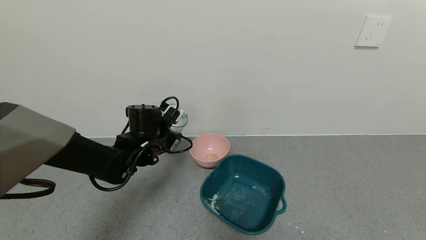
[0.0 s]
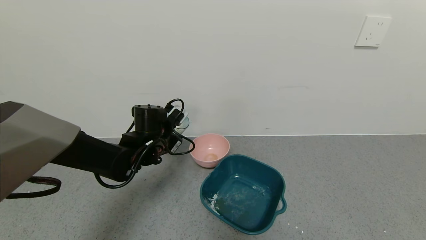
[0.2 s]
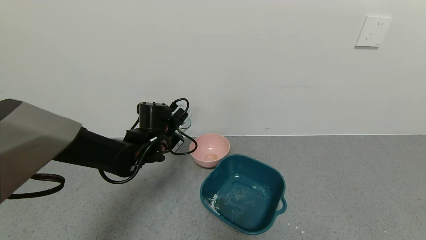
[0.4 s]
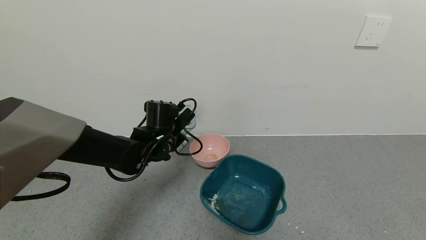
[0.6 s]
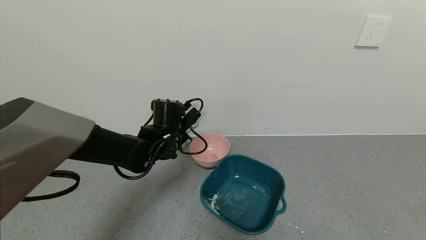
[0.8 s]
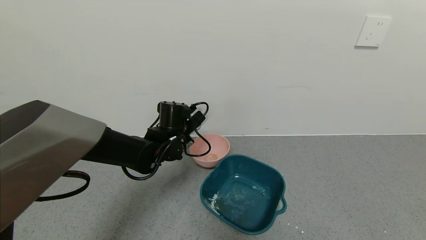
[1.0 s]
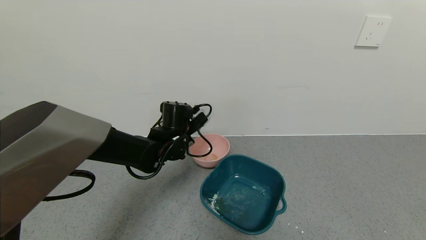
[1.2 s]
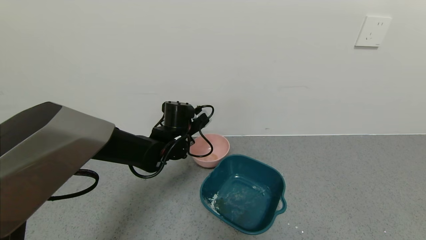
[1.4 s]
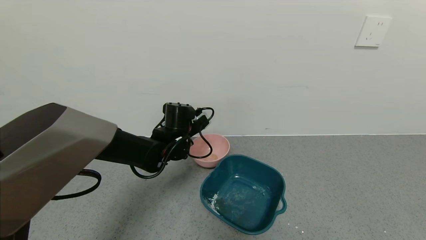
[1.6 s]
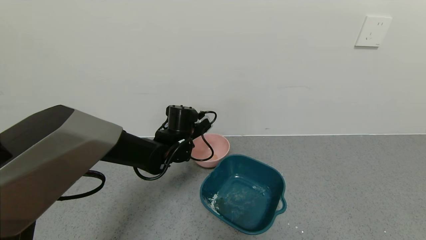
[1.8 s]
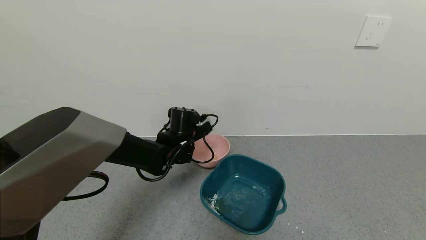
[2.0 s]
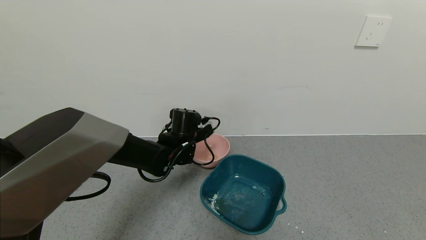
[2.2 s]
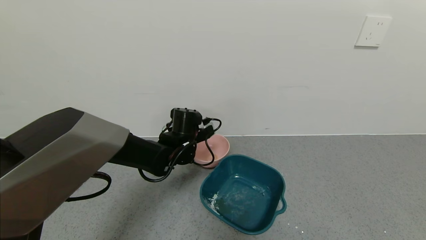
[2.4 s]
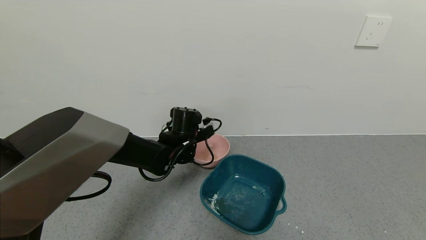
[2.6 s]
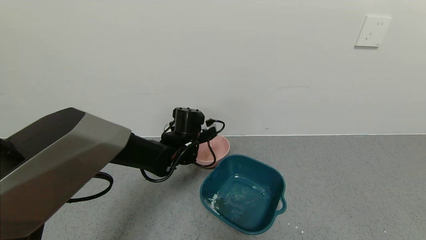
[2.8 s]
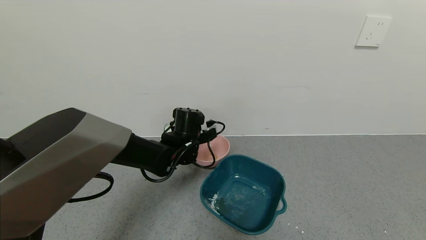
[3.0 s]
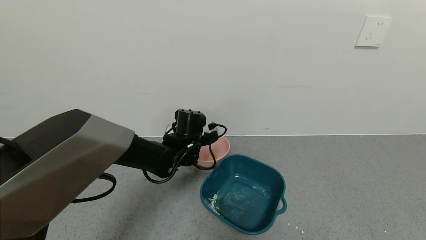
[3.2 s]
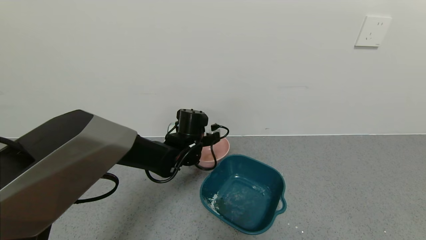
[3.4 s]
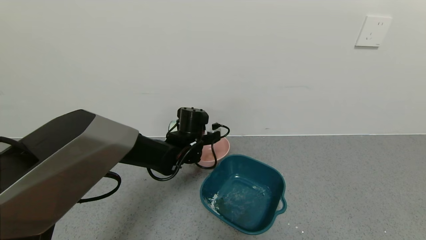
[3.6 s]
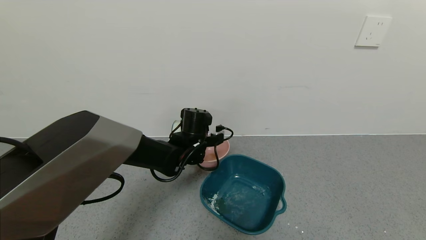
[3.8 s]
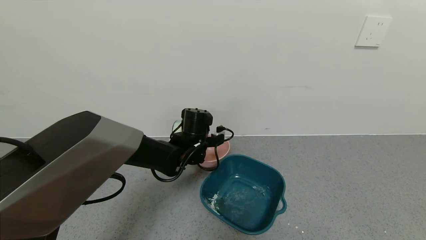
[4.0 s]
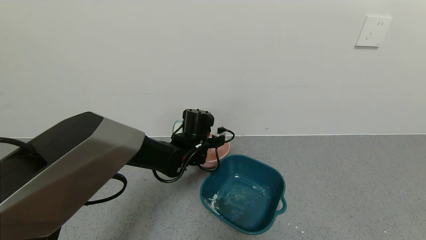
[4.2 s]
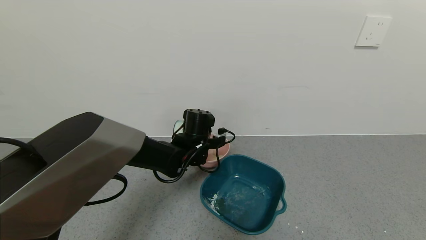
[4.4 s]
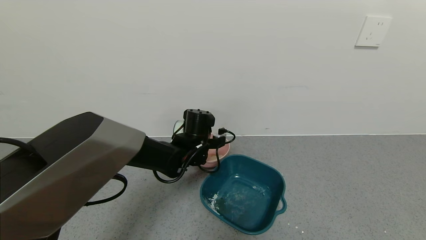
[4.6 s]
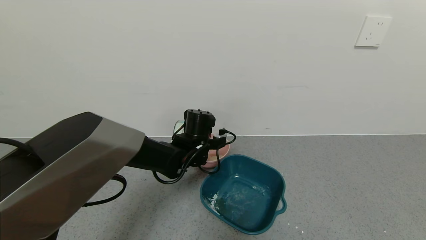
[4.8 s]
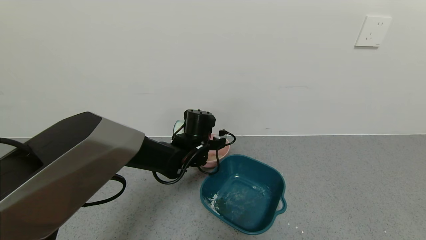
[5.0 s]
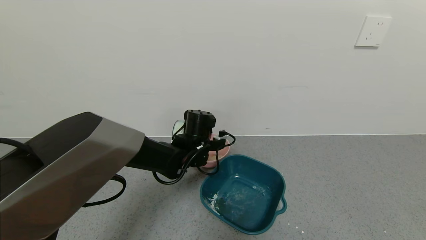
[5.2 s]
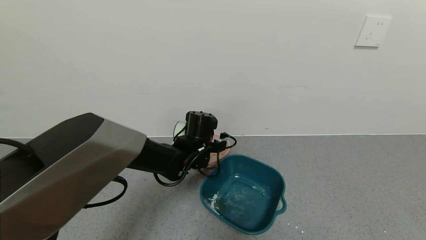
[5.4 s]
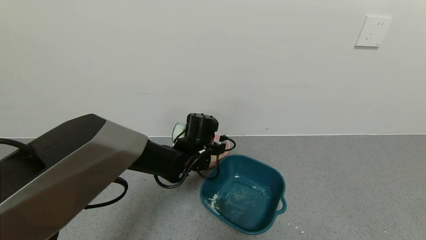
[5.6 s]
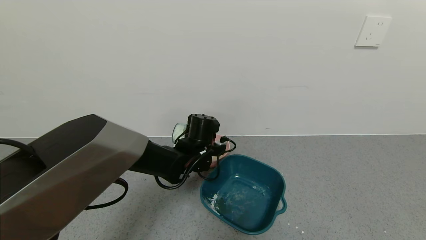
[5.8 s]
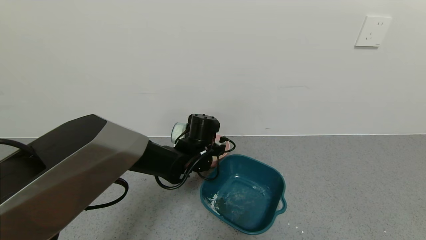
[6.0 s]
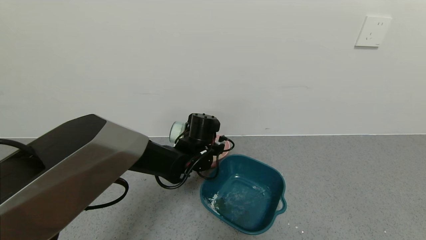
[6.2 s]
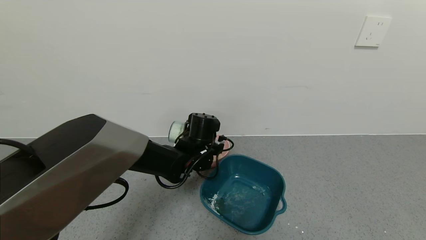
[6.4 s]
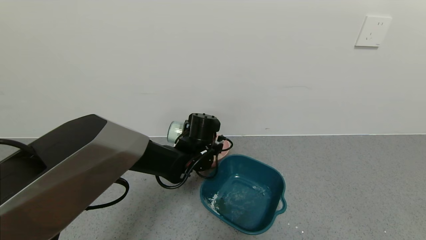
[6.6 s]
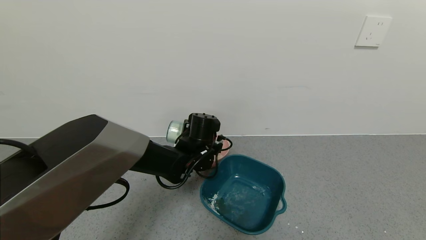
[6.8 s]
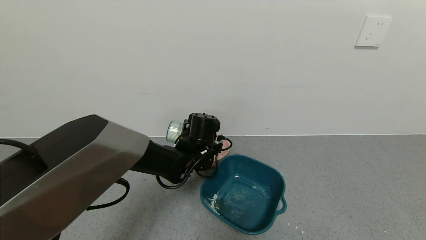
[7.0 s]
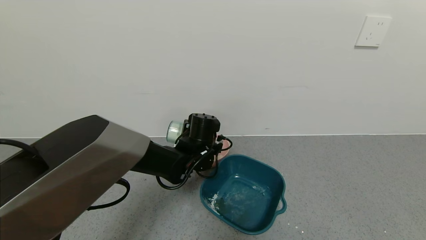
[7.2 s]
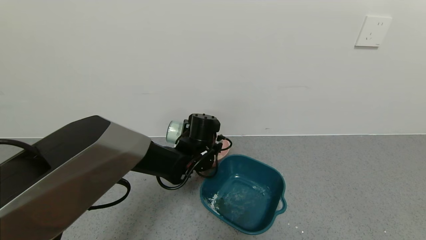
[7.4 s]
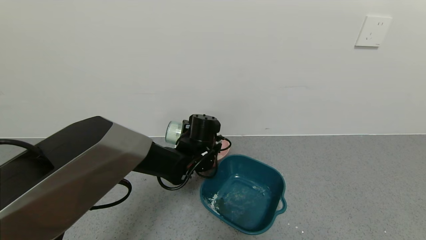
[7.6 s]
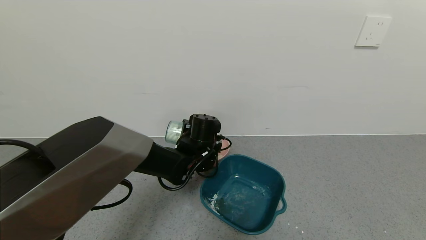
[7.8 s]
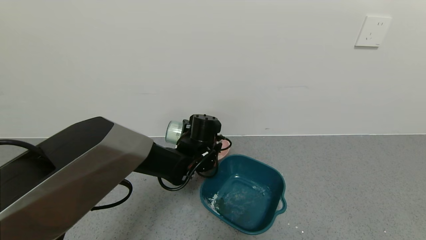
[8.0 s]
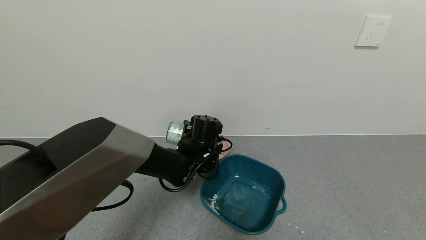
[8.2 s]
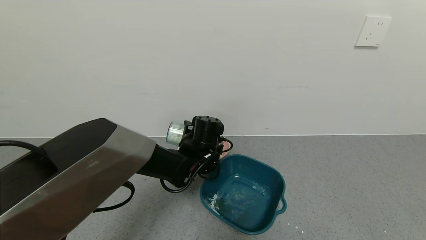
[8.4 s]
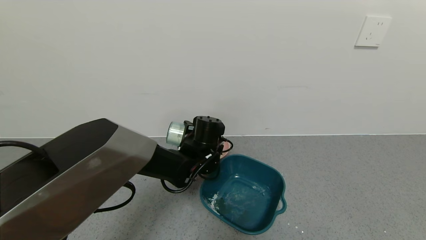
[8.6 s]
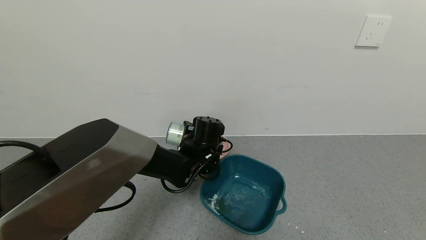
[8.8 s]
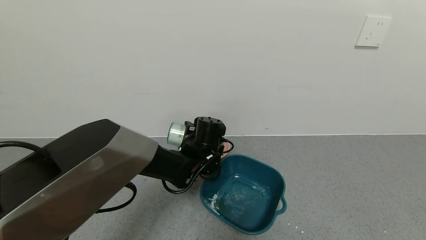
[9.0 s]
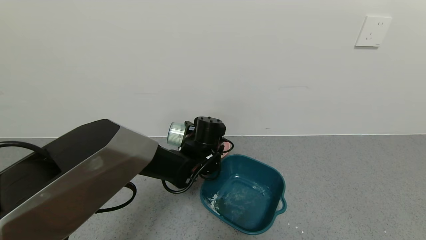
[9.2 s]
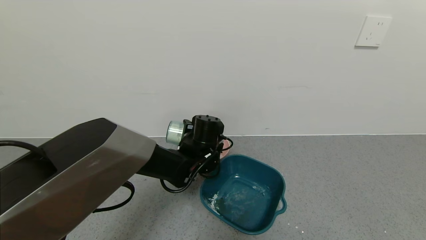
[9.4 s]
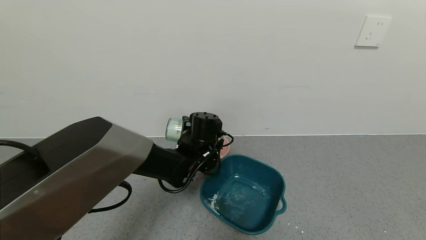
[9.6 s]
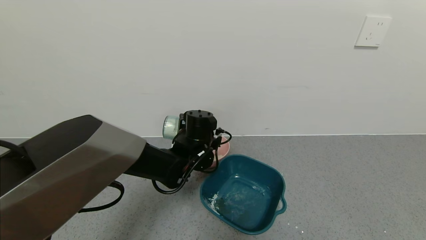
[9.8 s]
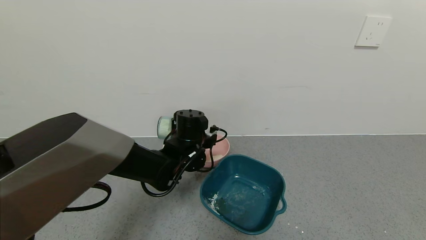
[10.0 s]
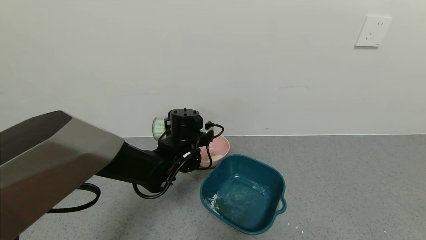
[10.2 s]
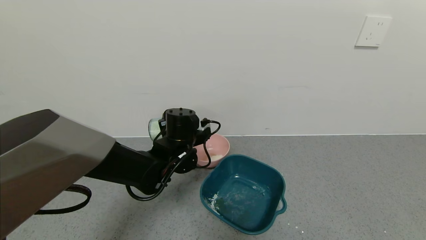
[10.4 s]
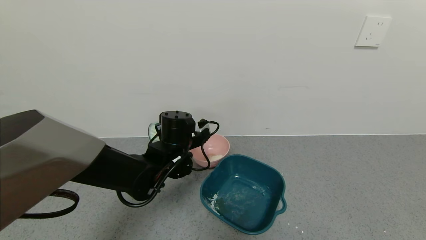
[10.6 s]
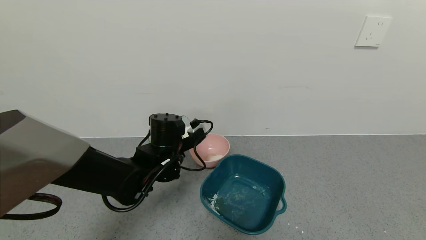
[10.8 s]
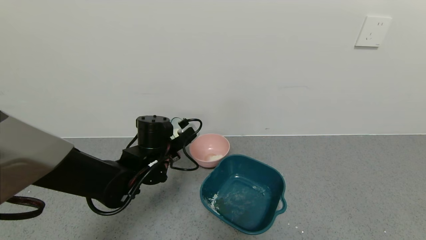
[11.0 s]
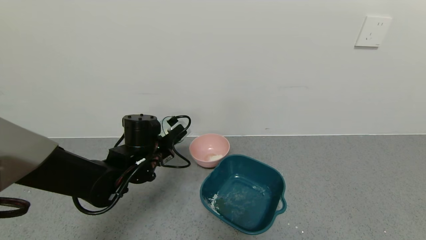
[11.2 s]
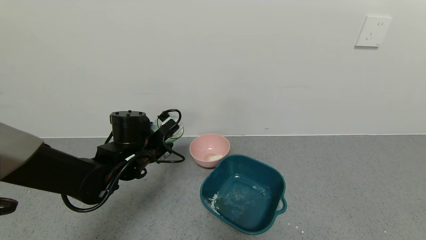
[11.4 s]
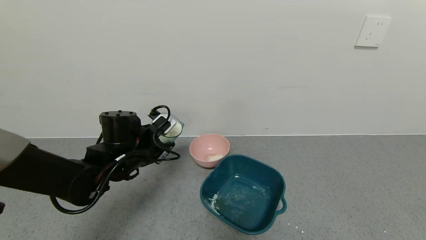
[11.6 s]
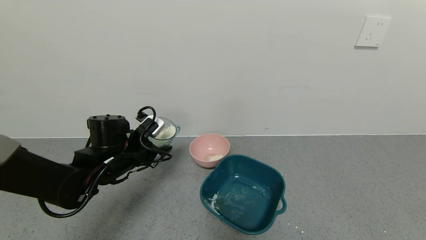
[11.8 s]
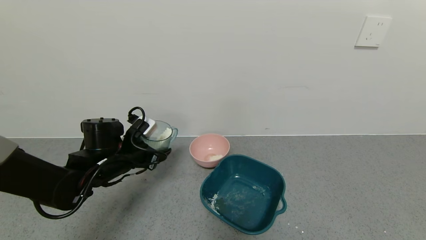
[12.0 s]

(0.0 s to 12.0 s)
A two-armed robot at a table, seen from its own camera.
Task of the whole recording: use a gripper to pick up the cup and pour the powder into a bowl or tray.
Step, 0.0 s - 9.6 s: Pour the powder into the pink bowl with the left gripper.
0.0 s - 1.6 s: The left gripper moves to the right, roughly 5 cm.
1.6 s - 3.0 s: The grippers move only a little.
3.0 s - 4.4 s: The grippers make only small movements.
4.4 s - 7.6 s: There are only small adjustments of the grippers.
7.6 s - 9.0 s: Both grippers stay about where they are.
9.0 s - 10.4 s: The left gripper moves some 5 cm.
10.4 s - 12.0 s: The left gripper heads to the left, covering some 15 cm.

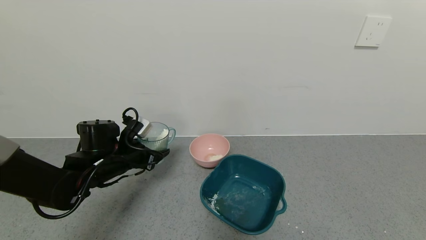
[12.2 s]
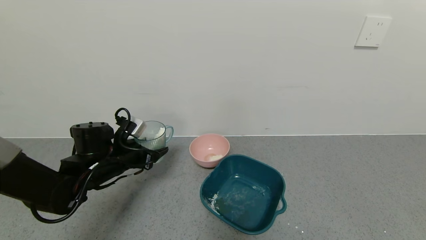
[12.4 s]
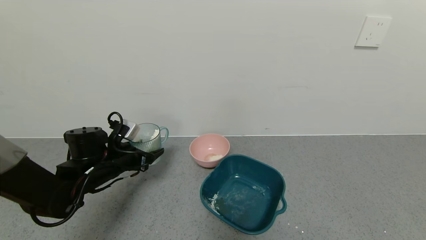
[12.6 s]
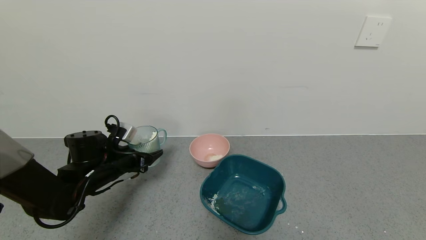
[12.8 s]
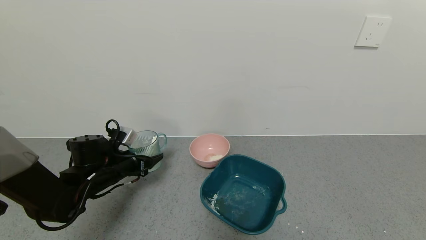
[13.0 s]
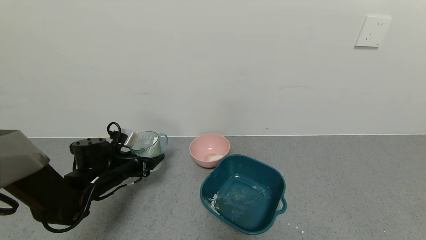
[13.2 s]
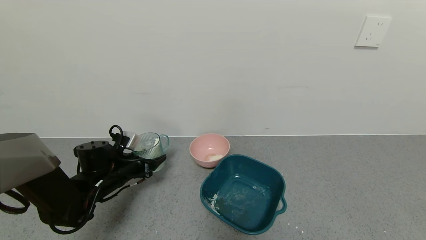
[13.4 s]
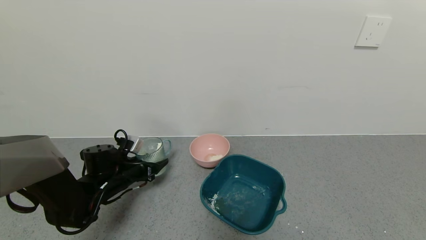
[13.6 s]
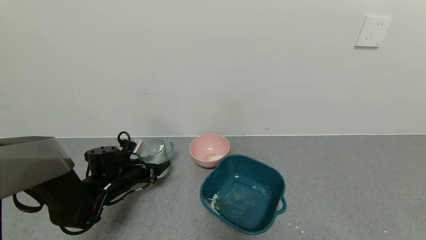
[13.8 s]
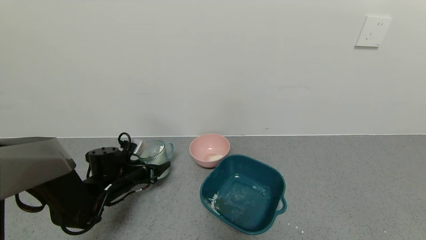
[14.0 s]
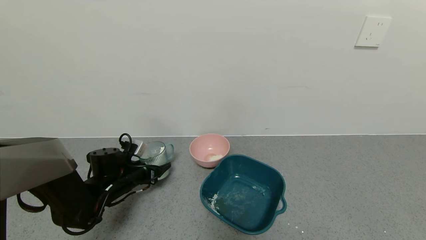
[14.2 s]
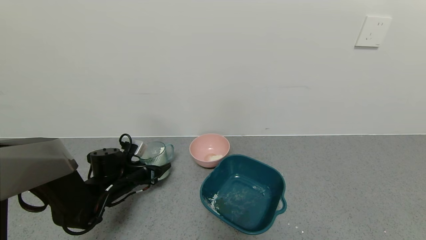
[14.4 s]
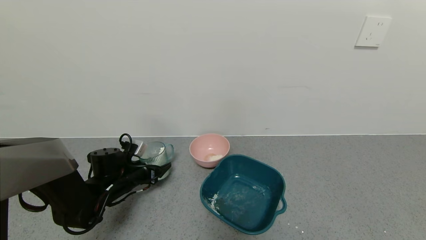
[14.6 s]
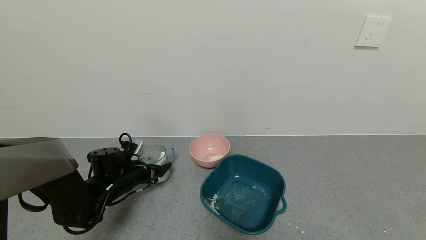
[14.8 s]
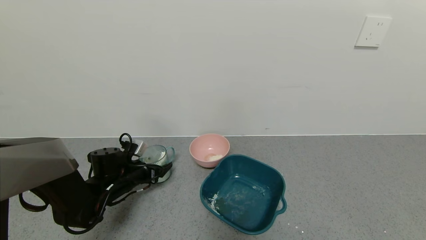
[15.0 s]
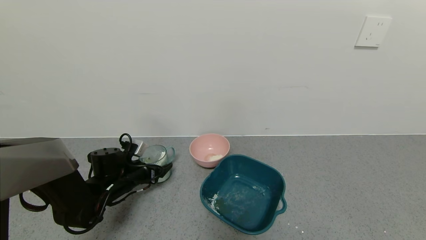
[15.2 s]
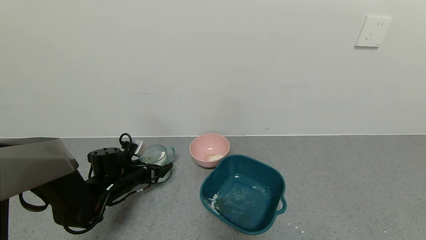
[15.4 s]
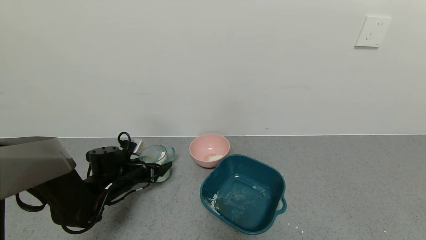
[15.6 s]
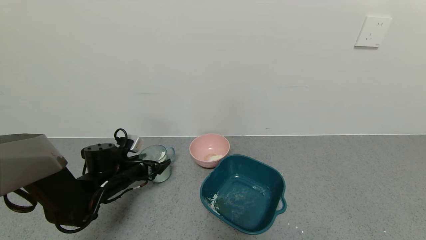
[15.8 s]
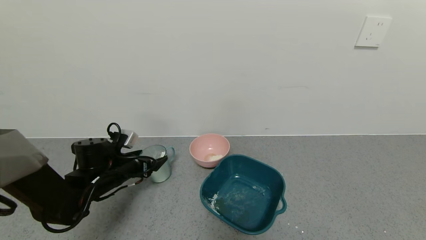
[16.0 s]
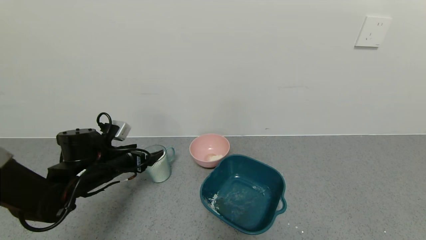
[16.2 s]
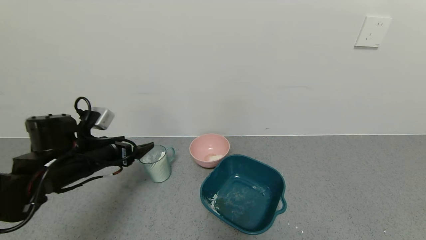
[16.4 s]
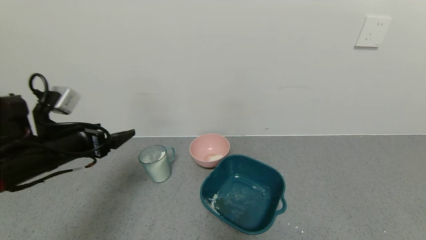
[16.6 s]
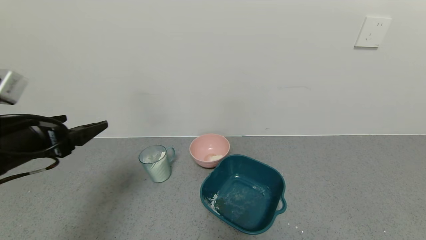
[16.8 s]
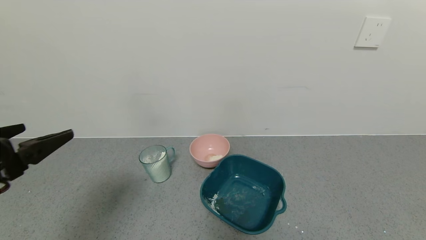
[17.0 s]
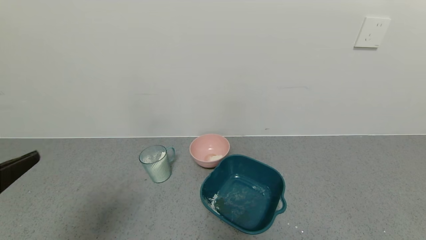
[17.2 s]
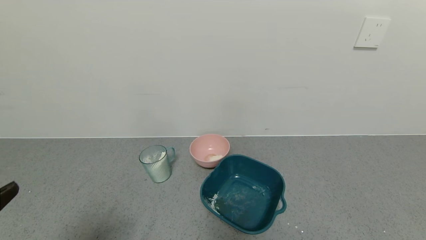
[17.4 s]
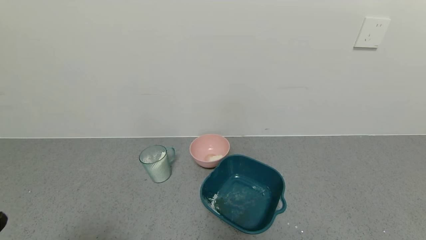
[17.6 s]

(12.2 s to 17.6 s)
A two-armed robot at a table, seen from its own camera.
Task of the whole recording: use a gripper to pick up the cup and pour the powder into a bowl or tray.
Step, 12.2 s - 16.0 s: Place the glass cup down with the left gripper.
12.2 s - 13.6 s: The left gripper is displaced downward by some 5 cm.
13.6 s - 15.0 s: The left gripper opens its fingers.
15.0 s - 16.2 s: The left gripper travels upward by approximately 10 cm.
16.2 s - 17.6 s: The left gripper moves backward, about 30 cm.
